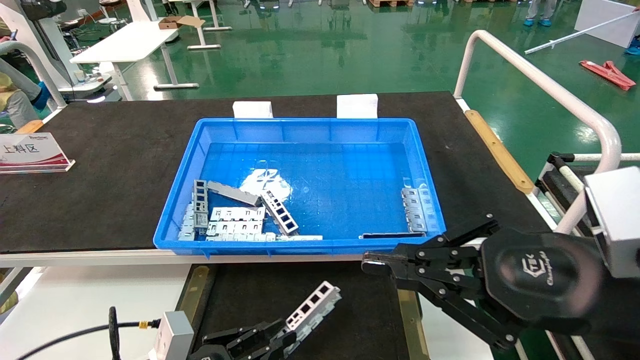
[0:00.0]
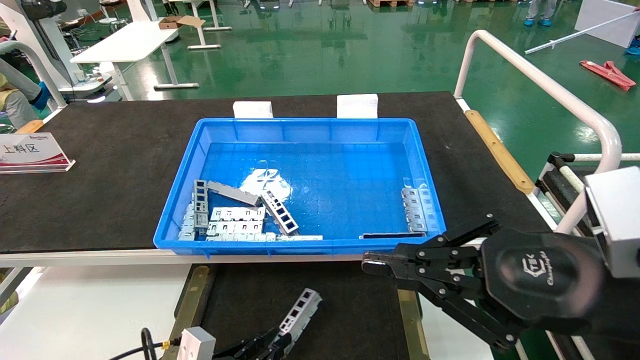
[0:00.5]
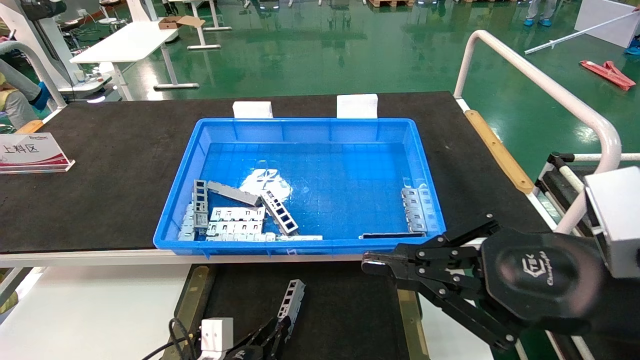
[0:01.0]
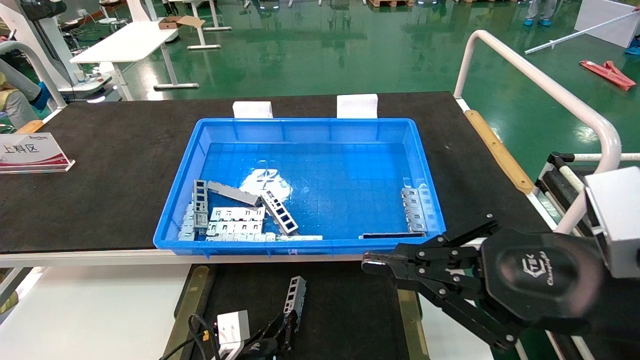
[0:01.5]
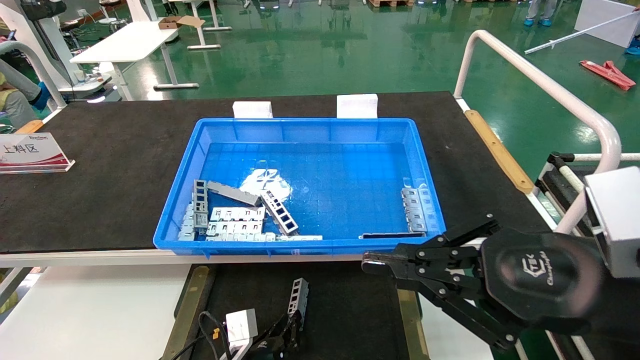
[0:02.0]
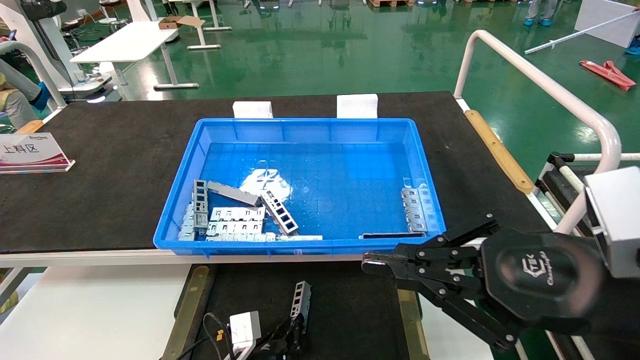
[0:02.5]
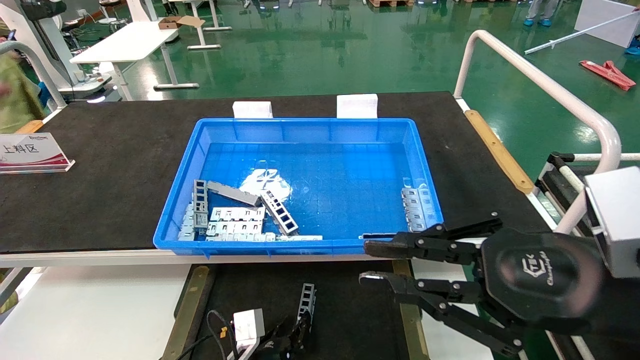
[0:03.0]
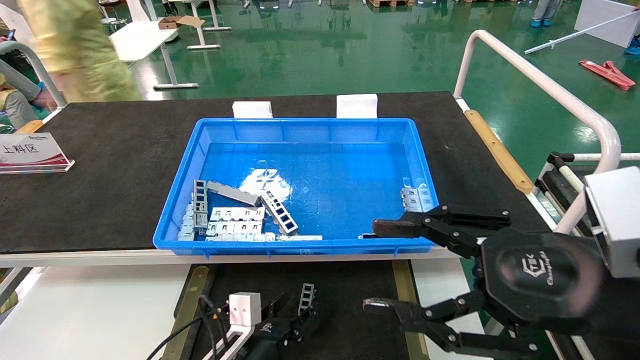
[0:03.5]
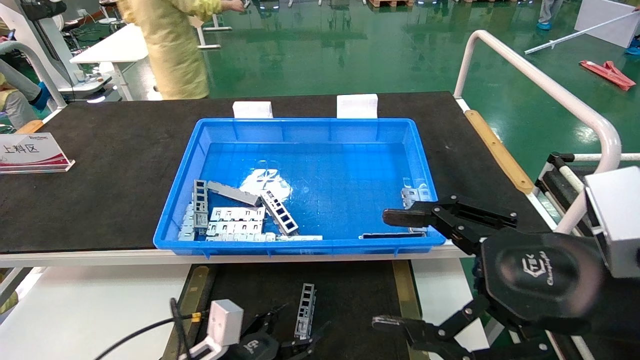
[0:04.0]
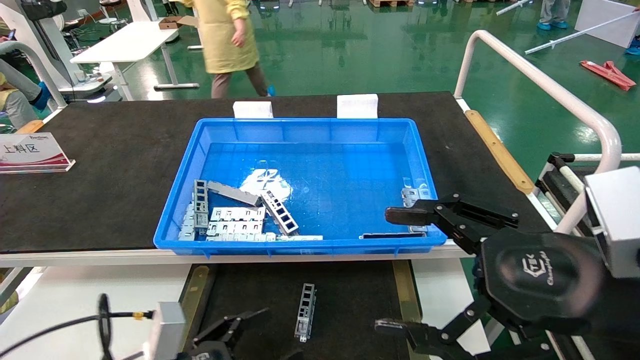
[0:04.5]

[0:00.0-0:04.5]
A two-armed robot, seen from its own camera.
Task of the whole recording: Grasp the part with one hand and place it on the black container.
Step, 0:00.0 to 0:03.0: Place the front USB bracket into the box.
0:00.0 to 0:02.0: The left gripper is displaced downward, to the right and forward by roughly 15 cm.
0:02.0 to 0:04.5: The right gripper opens its fingers, while the left gripper shifts about 20 cm upward, to the left and backward, and opens its fingers.
